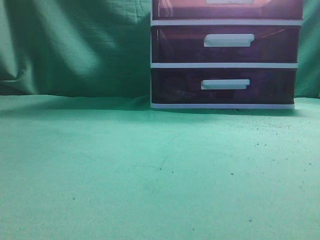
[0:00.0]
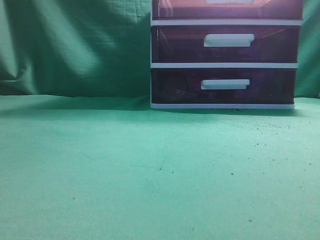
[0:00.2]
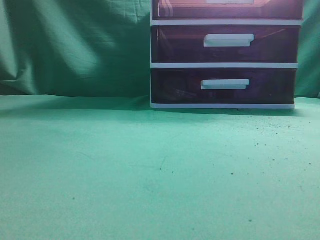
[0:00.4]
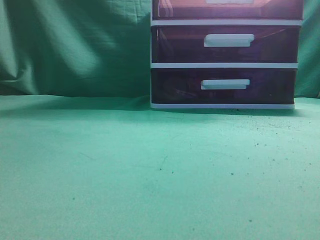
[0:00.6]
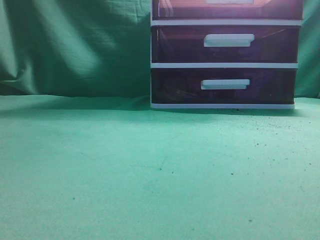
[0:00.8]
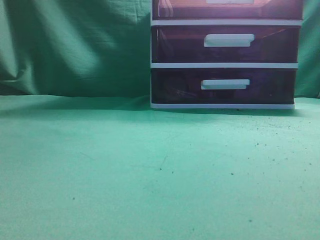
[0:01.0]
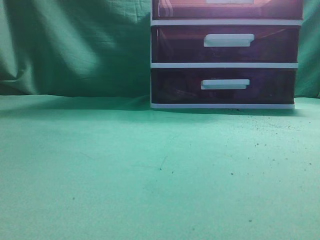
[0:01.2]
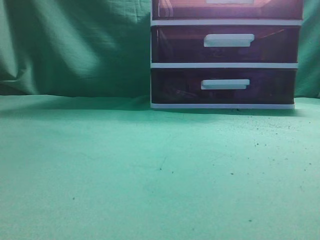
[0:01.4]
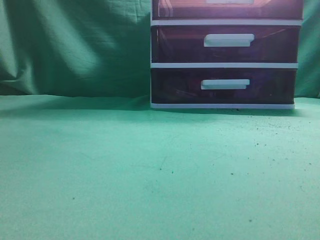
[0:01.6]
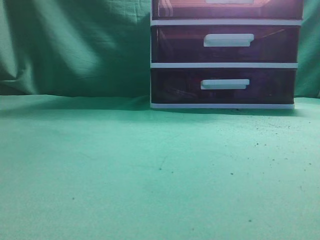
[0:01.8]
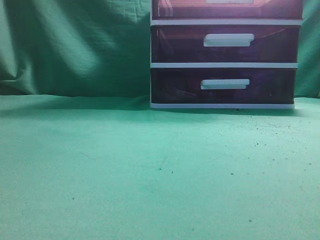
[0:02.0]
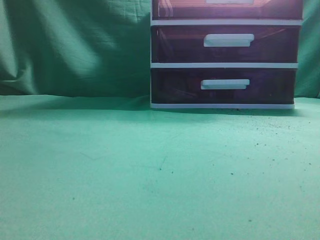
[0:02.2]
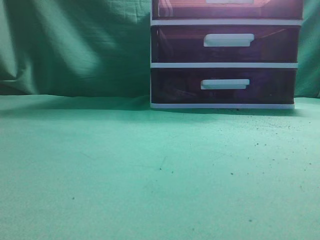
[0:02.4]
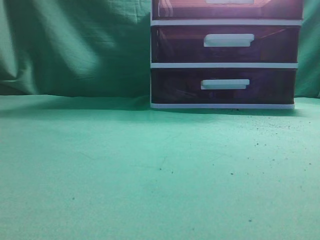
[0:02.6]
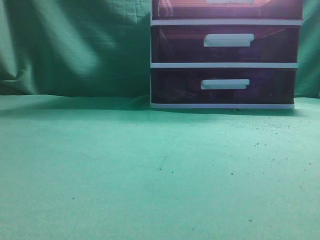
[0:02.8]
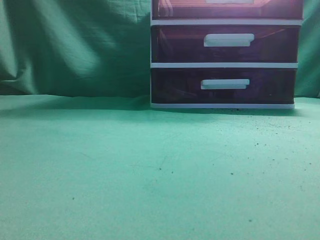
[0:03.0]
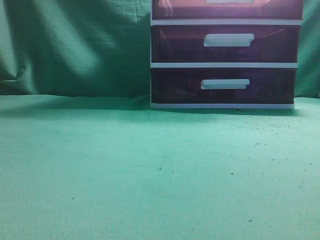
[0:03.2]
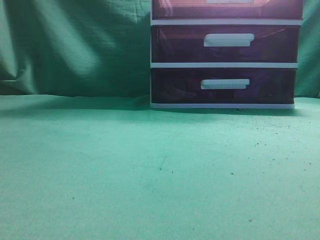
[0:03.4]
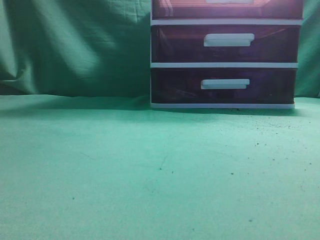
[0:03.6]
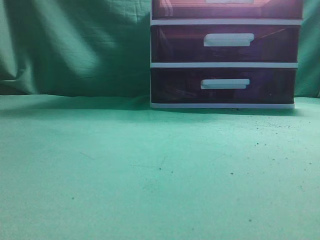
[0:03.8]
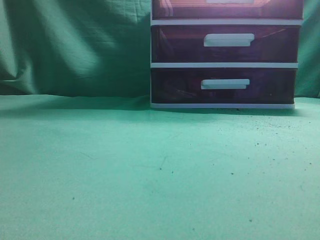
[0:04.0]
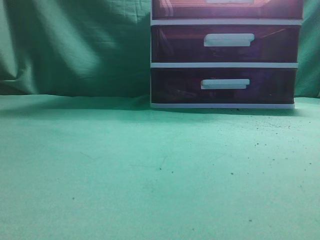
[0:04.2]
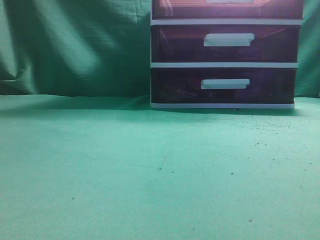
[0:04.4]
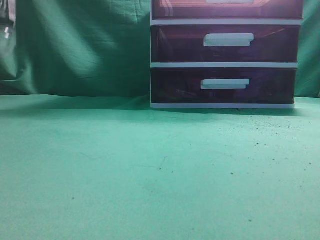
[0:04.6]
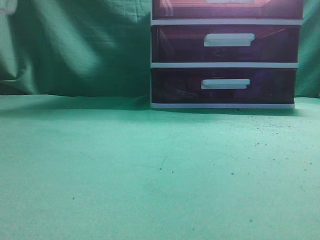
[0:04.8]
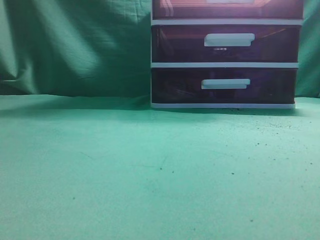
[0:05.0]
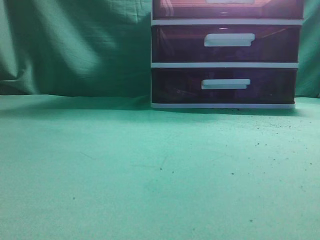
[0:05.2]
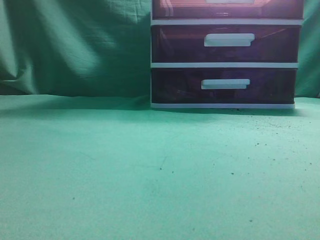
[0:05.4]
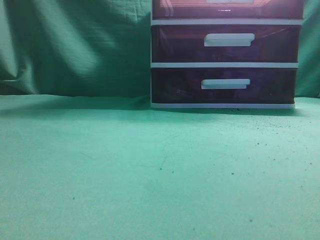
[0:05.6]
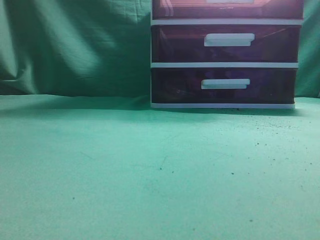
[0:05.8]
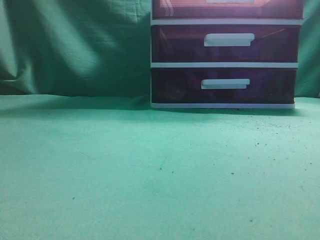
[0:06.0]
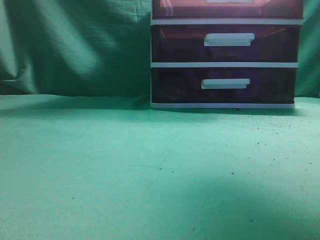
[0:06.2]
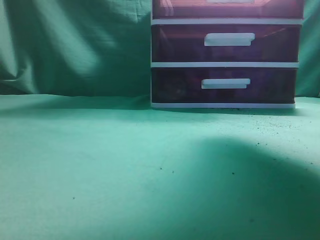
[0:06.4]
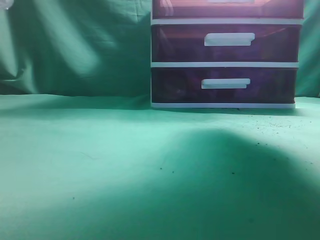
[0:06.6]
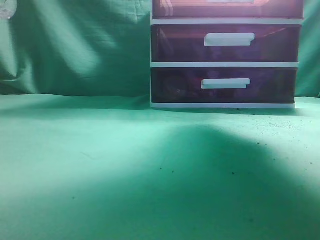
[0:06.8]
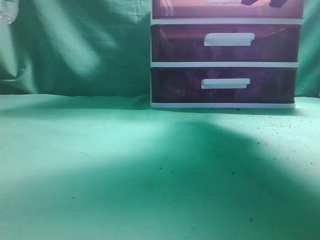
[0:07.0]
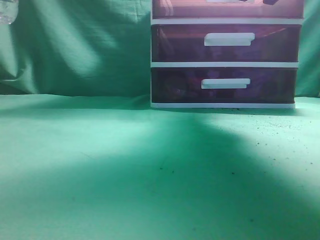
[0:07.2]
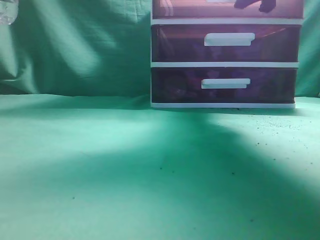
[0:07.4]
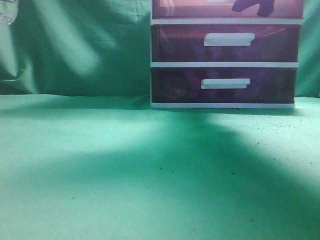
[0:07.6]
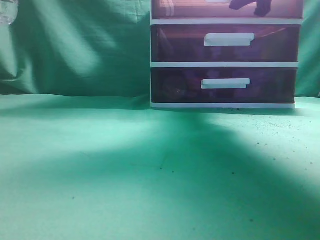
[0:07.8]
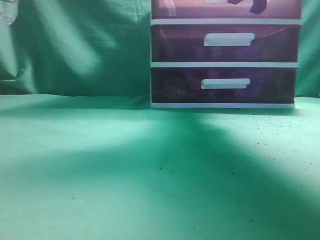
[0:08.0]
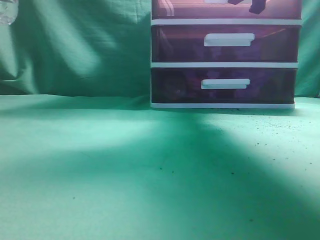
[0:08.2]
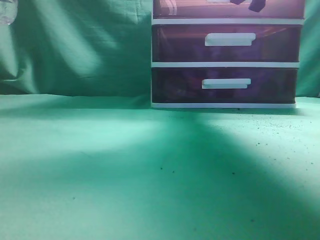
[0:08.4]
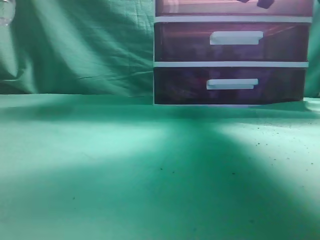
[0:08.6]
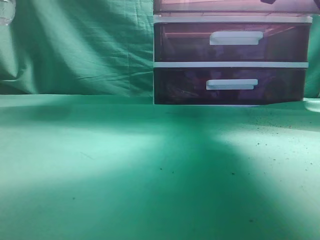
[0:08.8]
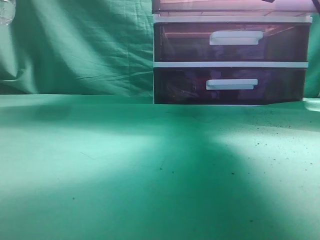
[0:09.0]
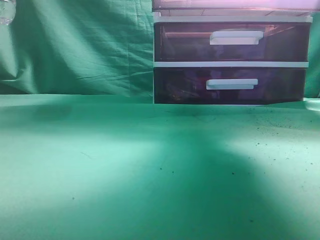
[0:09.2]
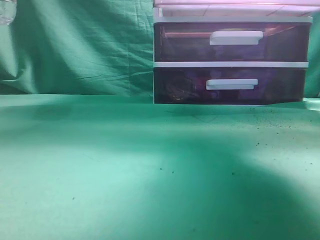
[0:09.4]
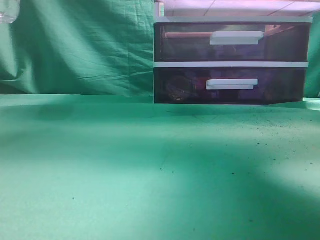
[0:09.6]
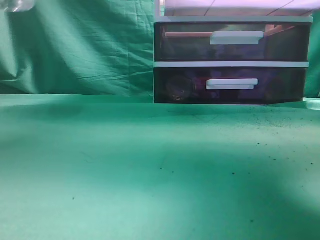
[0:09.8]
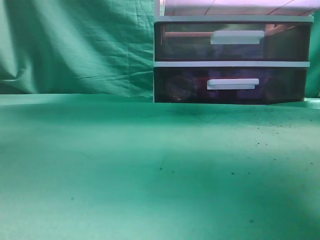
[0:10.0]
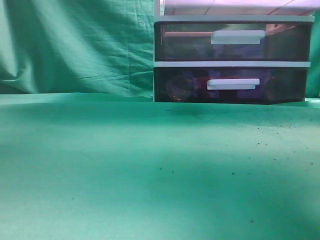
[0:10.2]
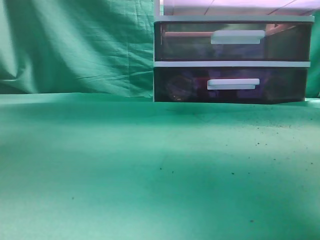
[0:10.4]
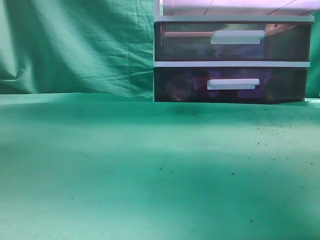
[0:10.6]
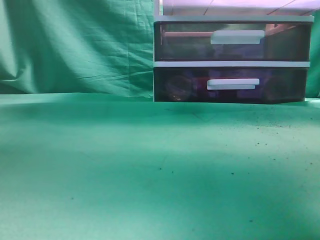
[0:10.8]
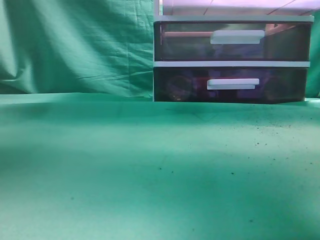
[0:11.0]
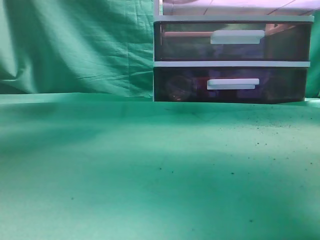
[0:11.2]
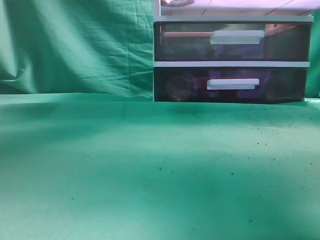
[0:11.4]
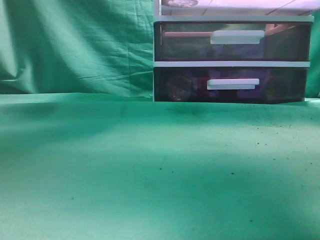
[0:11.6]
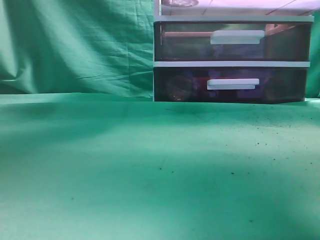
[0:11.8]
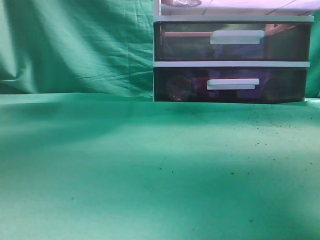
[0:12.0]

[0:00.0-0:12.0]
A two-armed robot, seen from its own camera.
Task of the whole recording: place the water bottle into the drawer.
Step, 0:00.0 to 0:10.2: Open the drawer.
0:06.0 to 0:07.6: The right gripper travels forward by some 20 cm, and opens its fingers. The left gripper changes place by some 5 cm.
0:07.6 to 0:09.0: The right gripper moves backward, about 5 cm, and closes.
0:09.0 to 0:10.4: The right gripper goes roughly 10 cm backward. The left gripper moves upward, approximately 10 cm.
0:10.4 to 0:12.0: The left gripper moves to the right and forward, some 20 cm, and opens up.

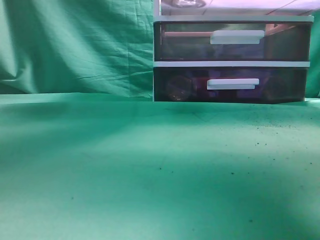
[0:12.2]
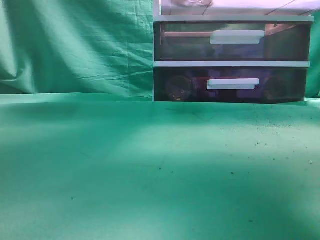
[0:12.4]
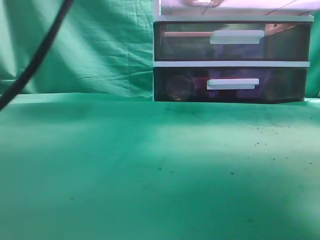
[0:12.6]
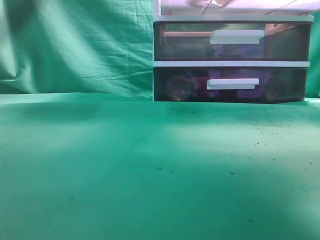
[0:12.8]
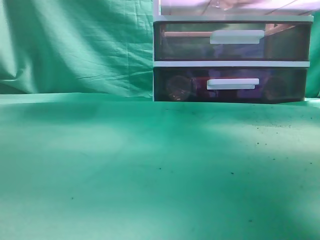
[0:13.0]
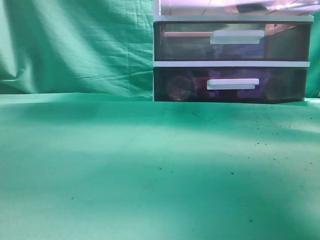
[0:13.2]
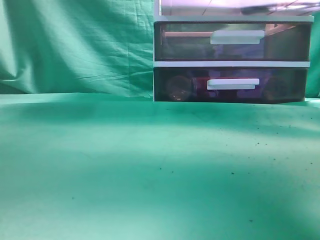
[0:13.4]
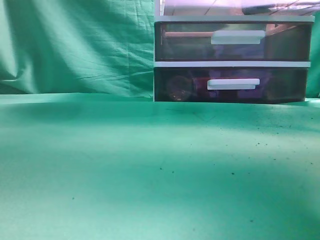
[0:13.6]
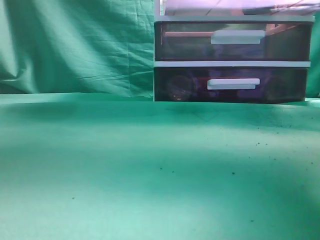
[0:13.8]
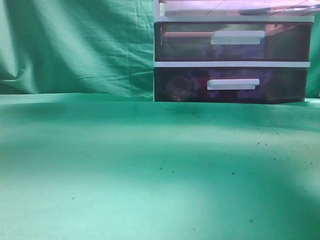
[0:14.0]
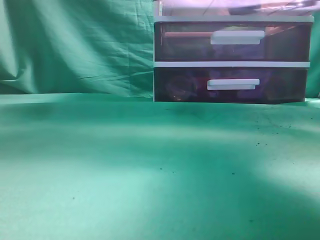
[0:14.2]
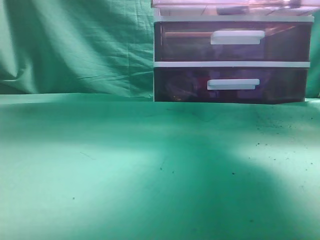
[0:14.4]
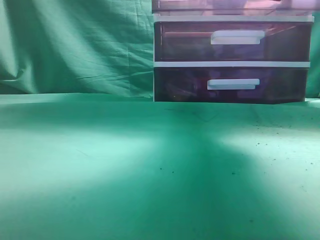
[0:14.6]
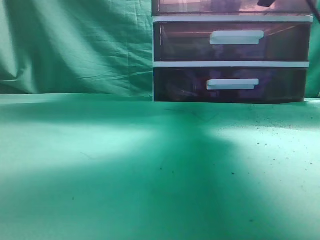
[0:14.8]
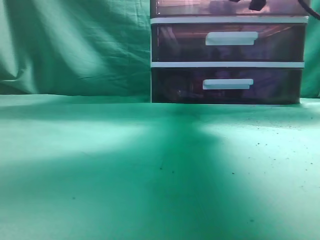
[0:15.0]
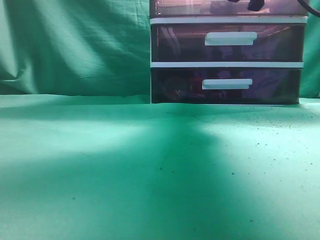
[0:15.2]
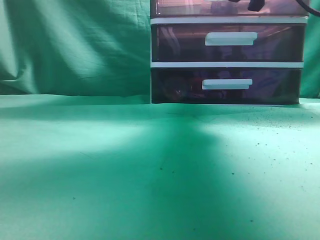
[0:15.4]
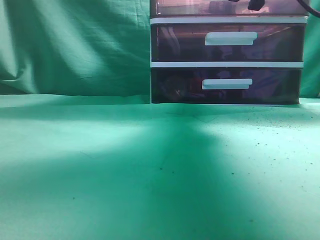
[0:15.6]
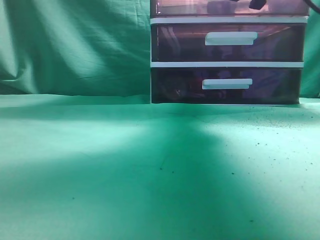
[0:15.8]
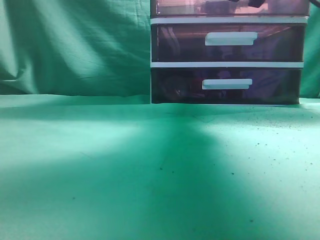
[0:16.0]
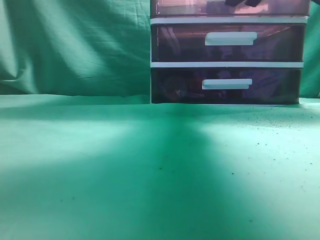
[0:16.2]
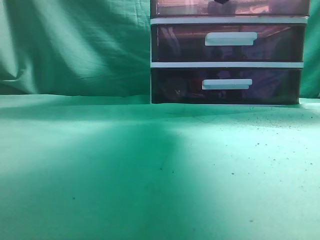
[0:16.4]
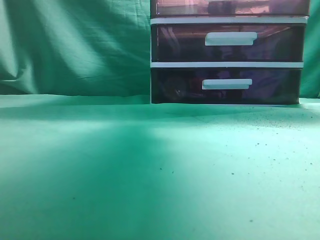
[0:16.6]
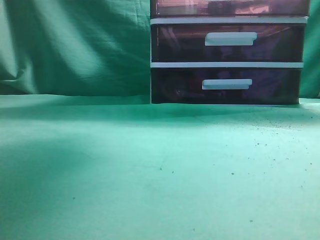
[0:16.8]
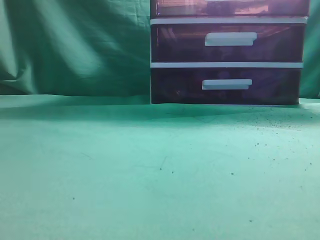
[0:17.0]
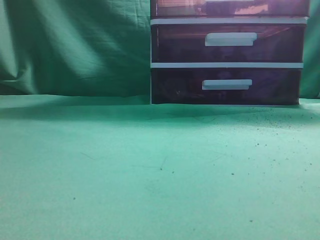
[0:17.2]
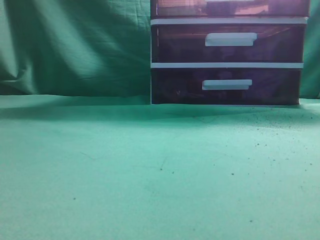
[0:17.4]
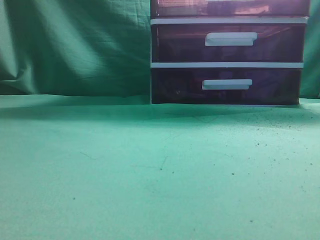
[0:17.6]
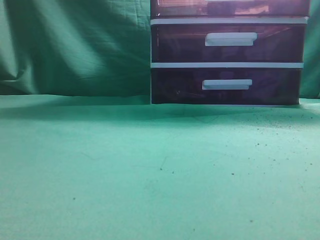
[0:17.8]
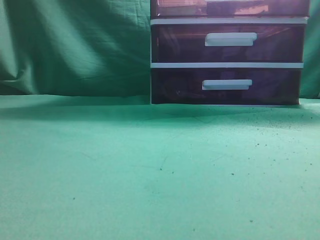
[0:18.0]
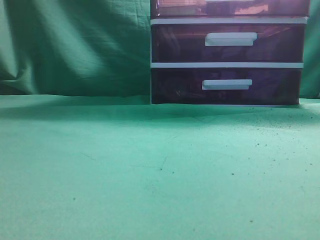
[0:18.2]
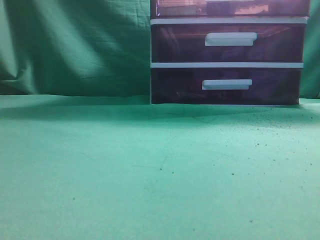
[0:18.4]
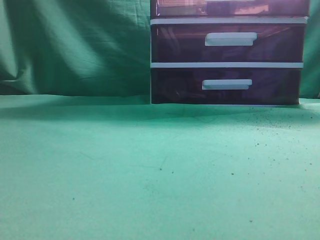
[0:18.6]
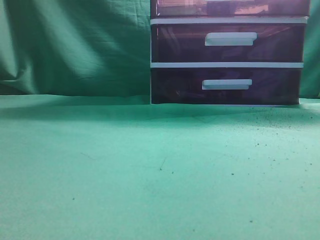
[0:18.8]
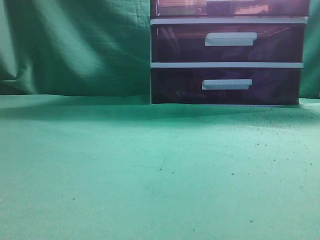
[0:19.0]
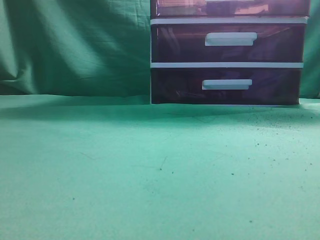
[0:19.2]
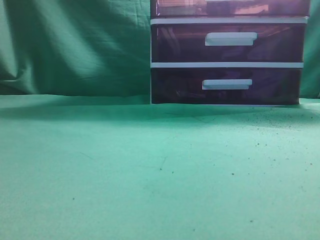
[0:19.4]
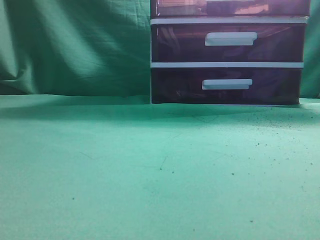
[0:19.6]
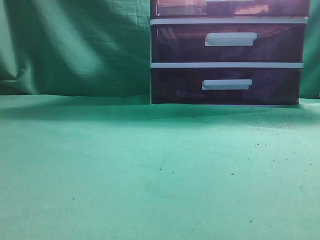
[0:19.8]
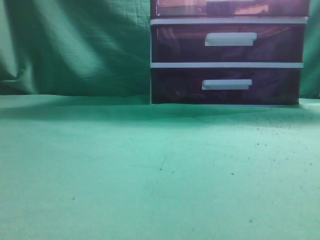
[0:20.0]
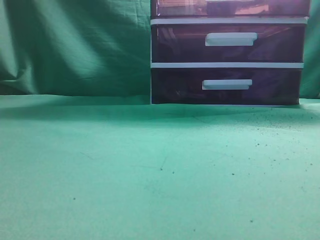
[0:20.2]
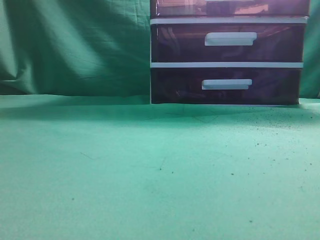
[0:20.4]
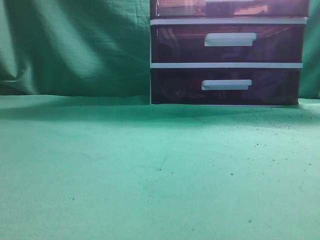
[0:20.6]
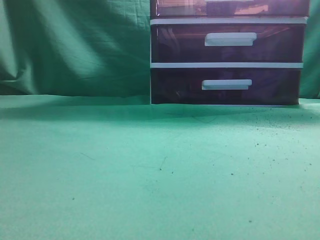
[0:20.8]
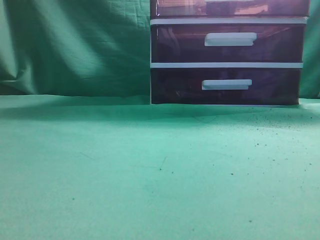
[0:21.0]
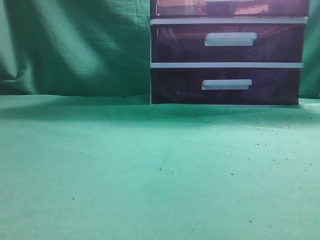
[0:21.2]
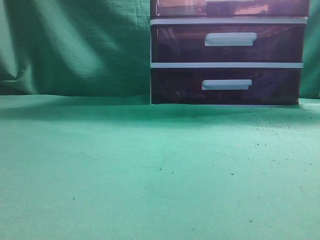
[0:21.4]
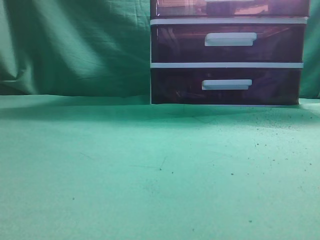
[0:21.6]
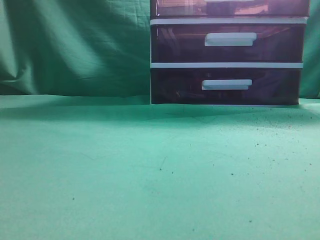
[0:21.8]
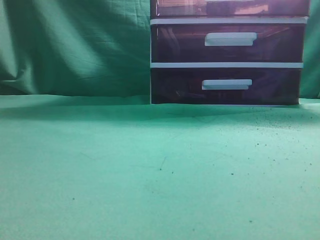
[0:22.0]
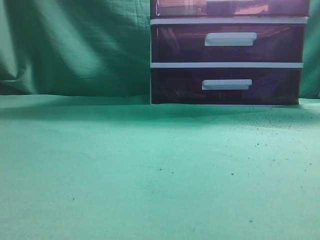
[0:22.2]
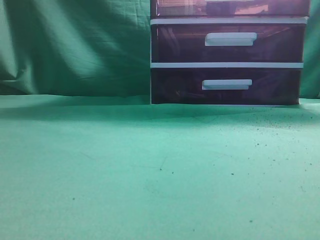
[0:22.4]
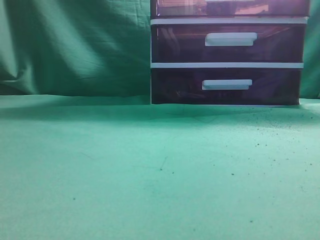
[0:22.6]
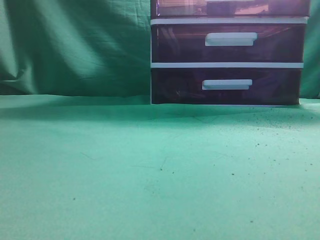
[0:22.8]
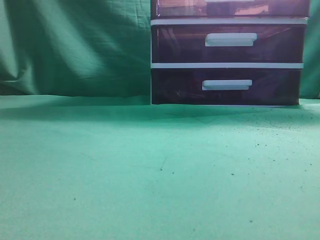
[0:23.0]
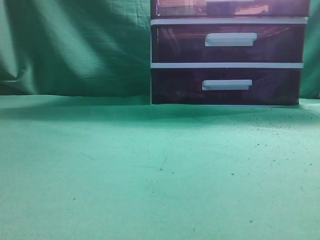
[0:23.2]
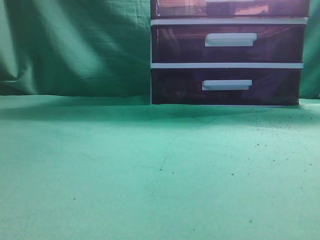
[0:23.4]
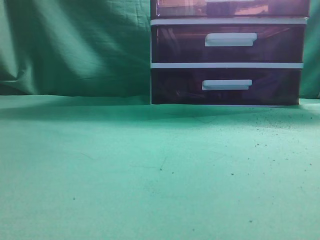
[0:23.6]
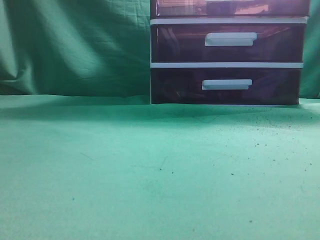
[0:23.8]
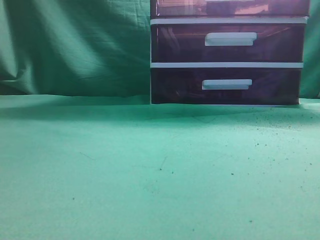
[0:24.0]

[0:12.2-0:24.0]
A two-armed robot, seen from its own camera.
Task of the whole recording: place the water bottle into the drawer.
Step, 0:13.4 to 0:16.4: Close the drawer.
0:12.2 to 0:13.6: The left gripper closes.
0:13.6 to 0:15.2: The right gripper goes approximately 15 cm forward. The left gripper moves to the left and backward, roughly 30 cm.
0:15.2 to 0:16.6: The right gripper opens.
0:16.6 to 0:18.2: The right gripper is displaced backward and upward by about 30 cm, and closes; the left gripper moves downward and backward, some 25 cm.
